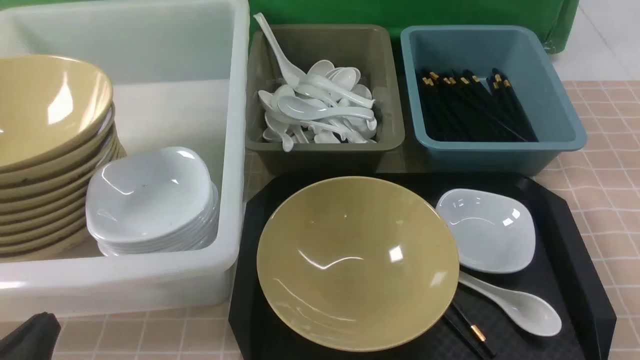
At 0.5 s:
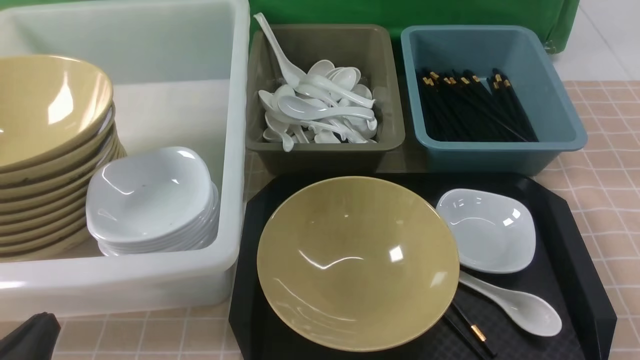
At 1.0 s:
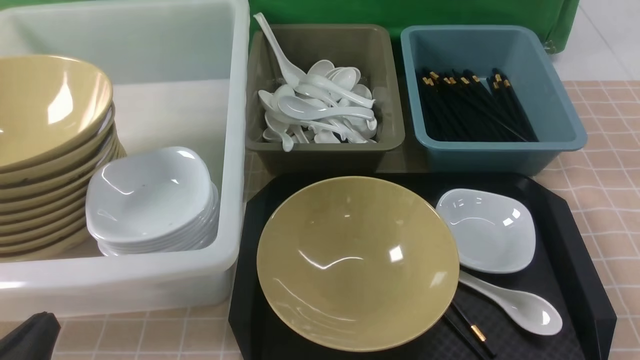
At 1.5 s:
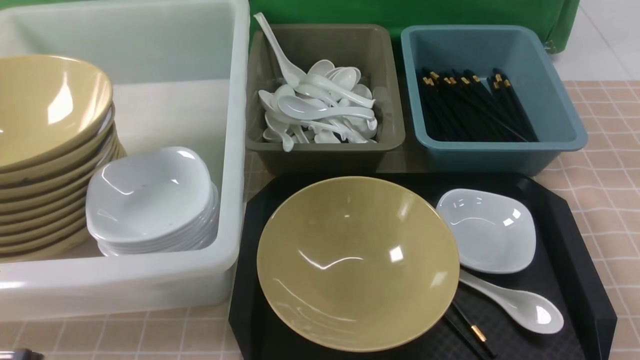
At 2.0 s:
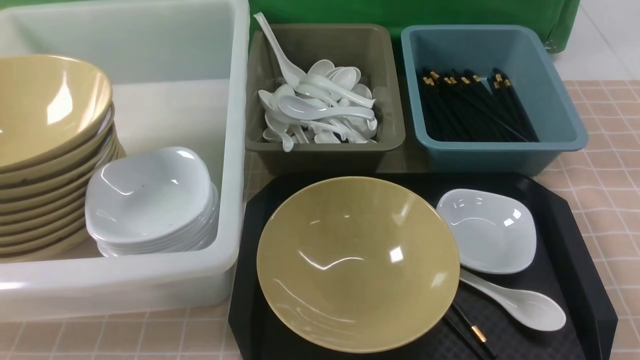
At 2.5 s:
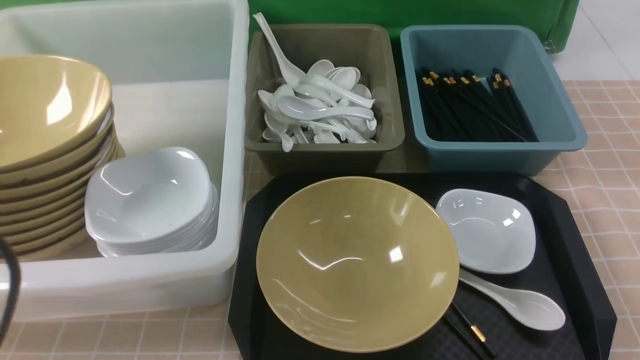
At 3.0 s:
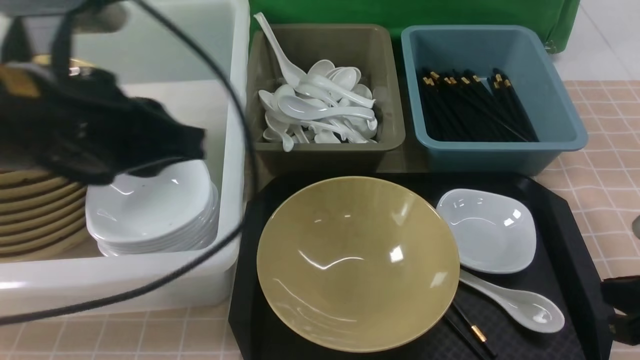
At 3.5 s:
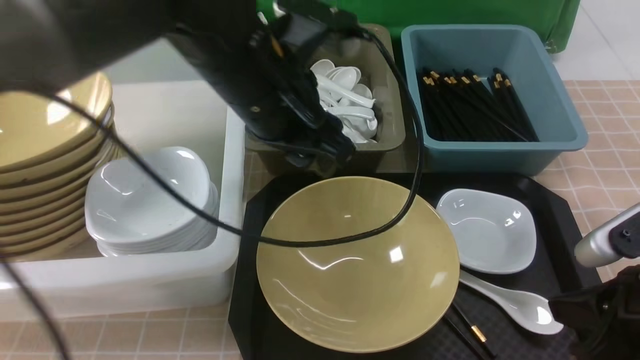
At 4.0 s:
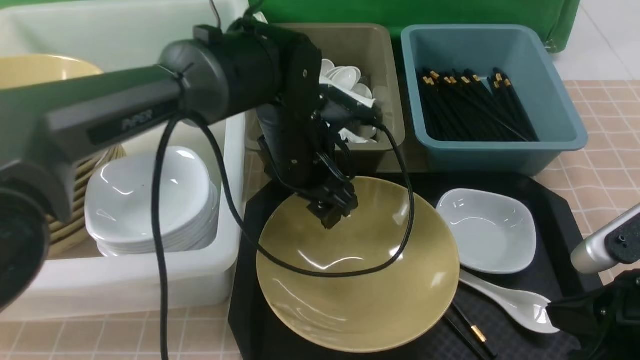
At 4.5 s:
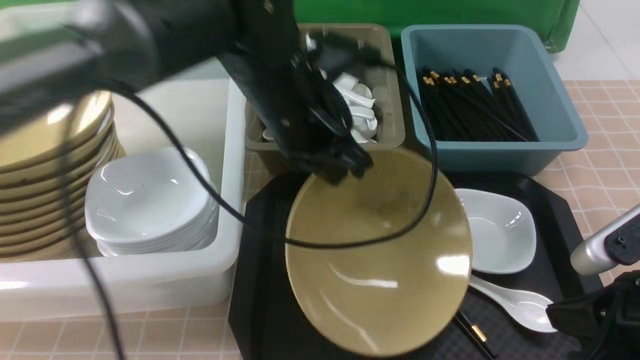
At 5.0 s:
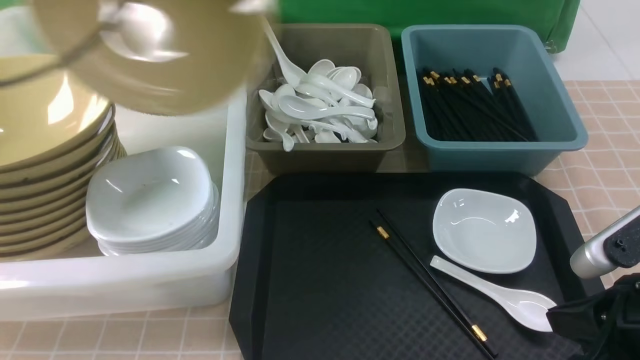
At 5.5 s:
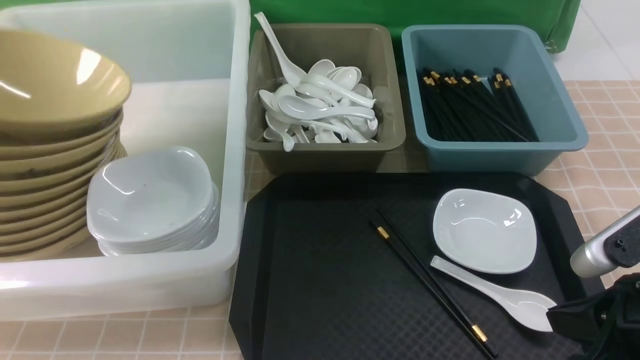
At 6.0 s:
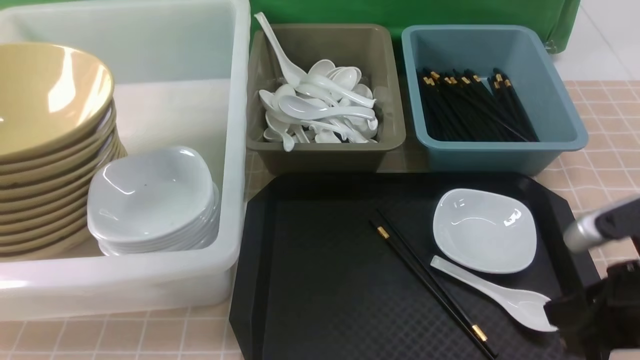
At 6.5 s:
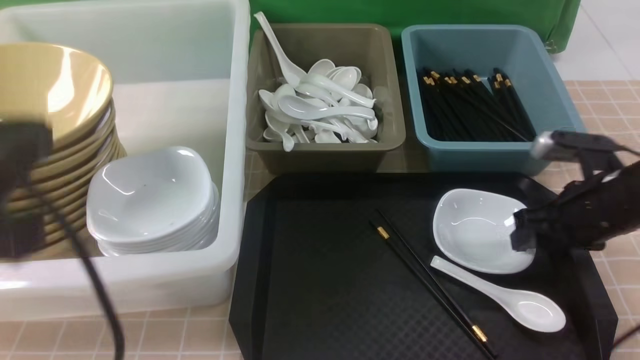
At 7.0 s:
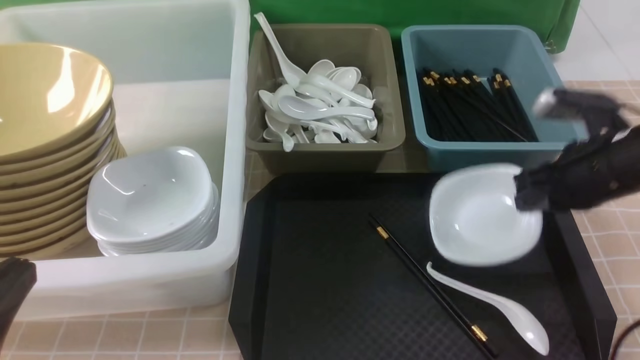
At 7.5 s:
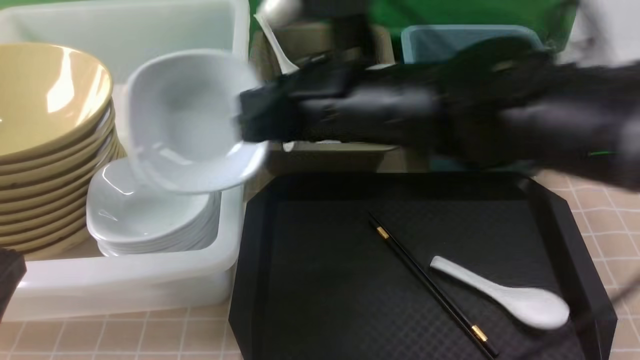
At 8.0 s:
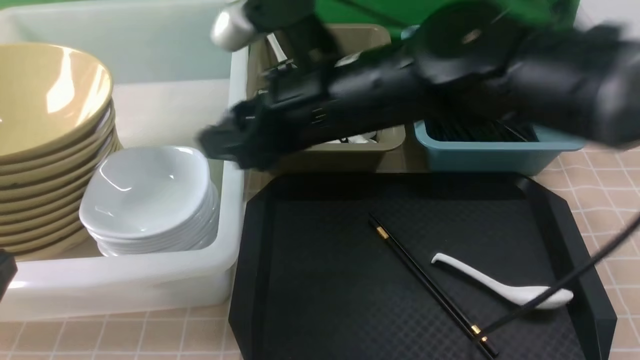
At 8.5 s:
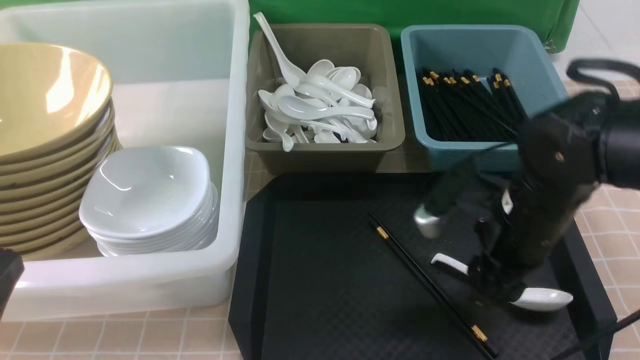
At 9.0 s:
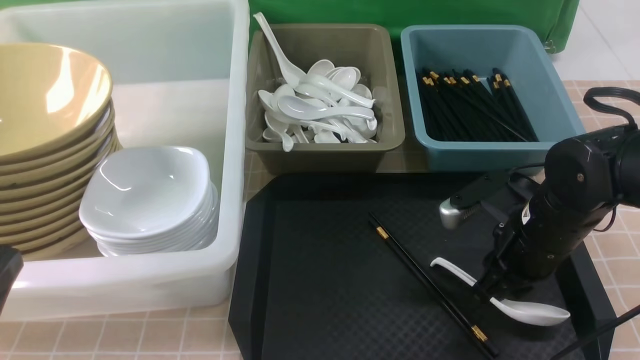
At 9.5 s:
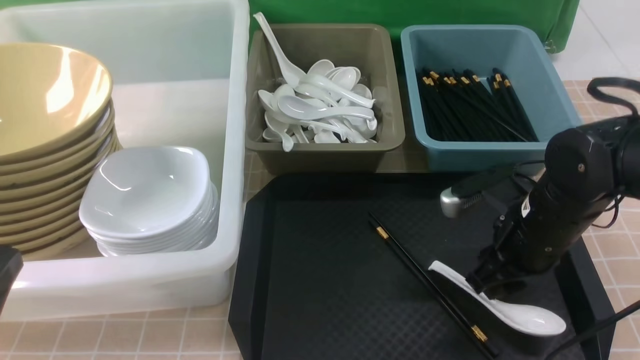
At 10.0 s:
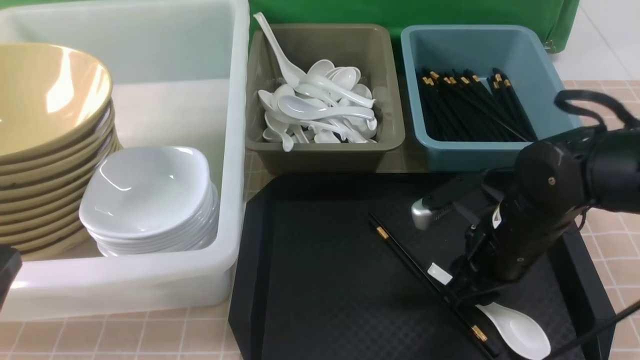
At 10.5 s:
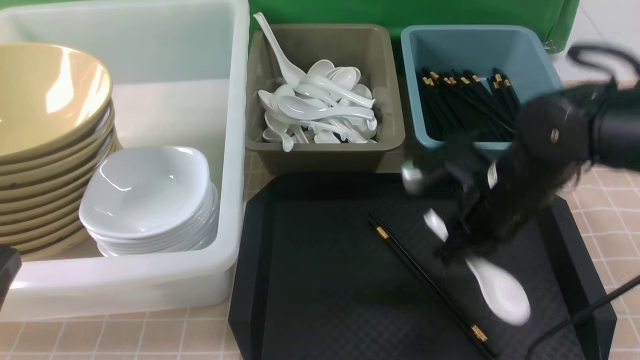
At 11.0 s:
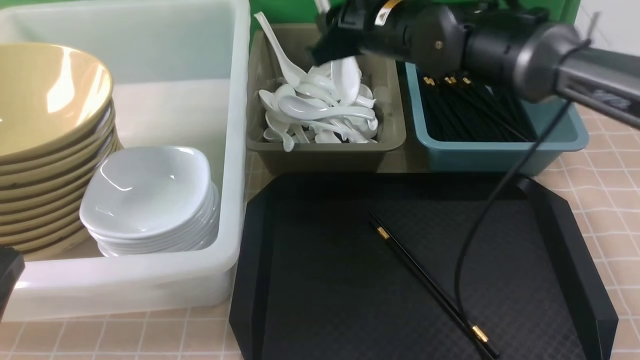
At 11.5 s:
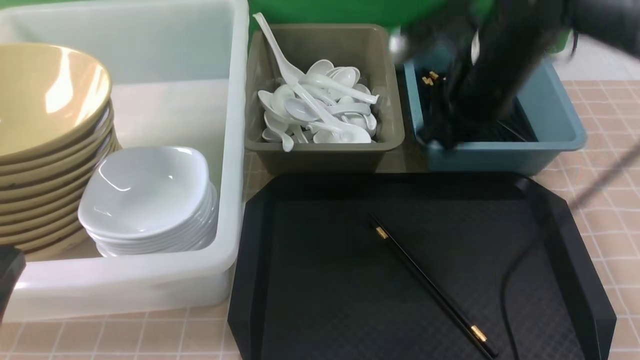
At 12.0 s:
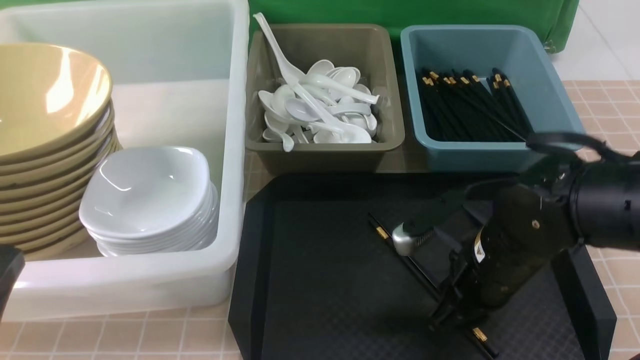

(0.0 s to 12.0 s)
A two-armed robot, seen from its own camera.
Task of the whole recording: on brown table put chopsticks spoon bowls plates into blue grey white boxes.
Step, 0.0 s - 4.5 s: use the left arm to grab the yellow noodle bowl on the left.
Step, 5.0 s - 5.5 s: use the left arm to put the noodle bowl into the large storage box on the left.
Step, 6.5 s - 7.0 s: use the right arm to grab the plate.
Step, 7.5 s - 8.0 s: use the right arm to put the plate into the large storage box on the left.
Step, 8.5 s - 10.0 s: use the right arm to grab the soup spoon in the middle.
0.0 s - 2.0 s: The two grippers go about 10 cm upward.
2.0 s - 4.0 s: The right gripper is displaced forward and to the left by roughly 15 cm. Meanwhile the left gripper is displaced forward and to the right by roughly 40 cm, and opens its fingers.
4.0 s - 6.0 s: The left gripper heads to the left, upward and backward, covering some 35 cm, and closes, then reopens.
6.0 s - 8.0 s: The right gripper shifts approximately 25 cm to the left and forward, and opens its fingers, while the left gripper moves backward and downward, approximately 25 cm, and closes its fingers.
8.0 s - 10.0 s: The right gripper moves to the right and downward, approximately 20 cm, and closes its fingers.
10.0 s - 12.0 s: The right gripper reaches roughly 15 cm forward, then returns.

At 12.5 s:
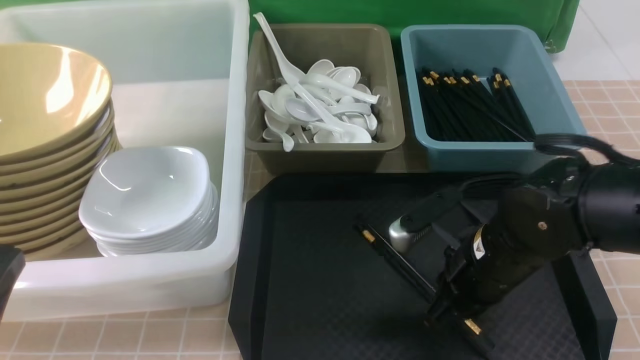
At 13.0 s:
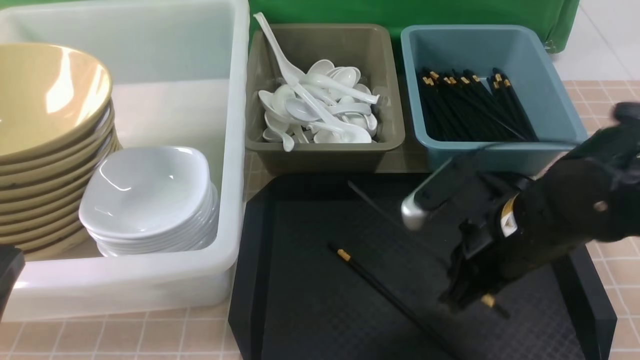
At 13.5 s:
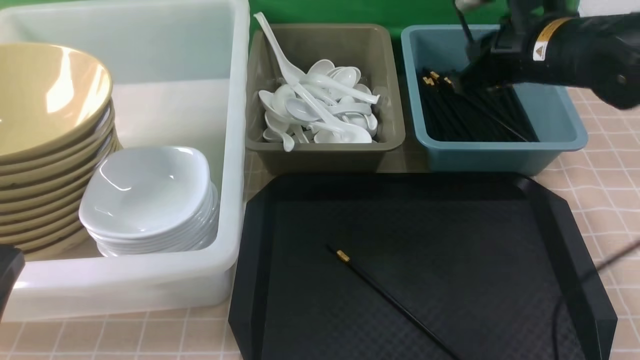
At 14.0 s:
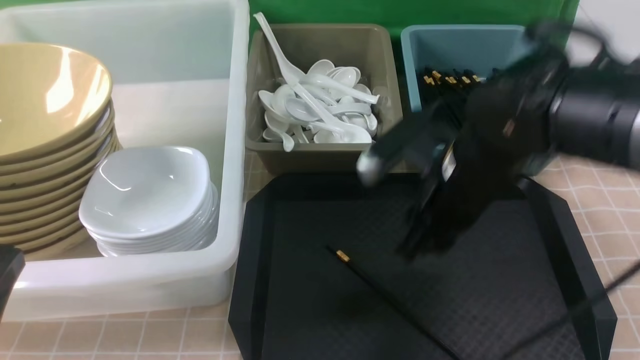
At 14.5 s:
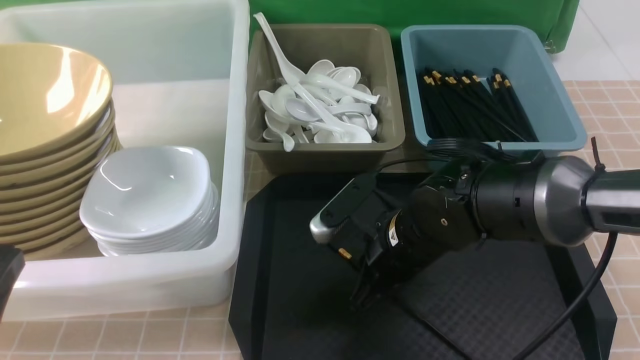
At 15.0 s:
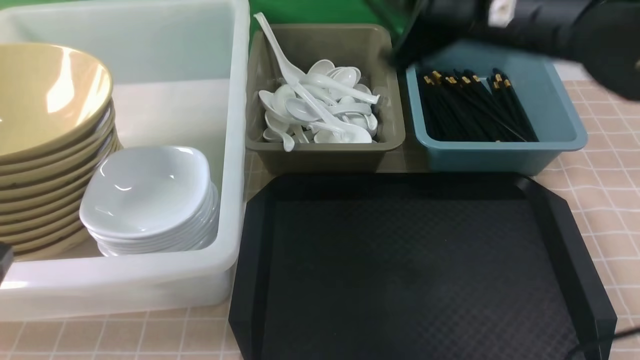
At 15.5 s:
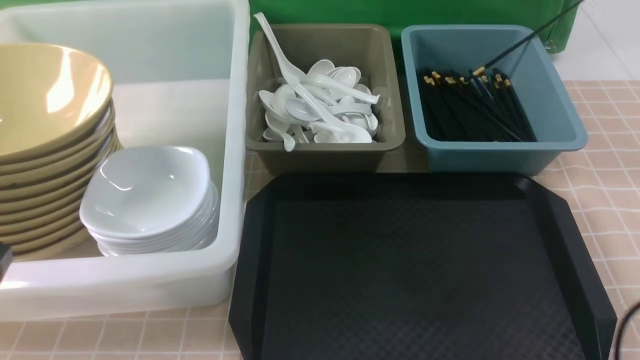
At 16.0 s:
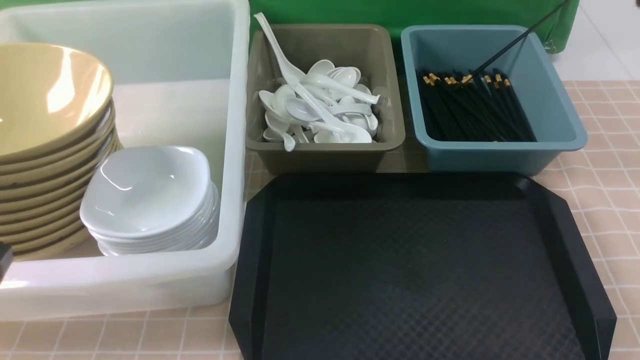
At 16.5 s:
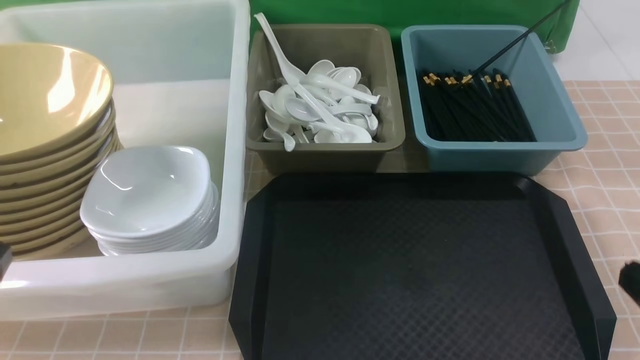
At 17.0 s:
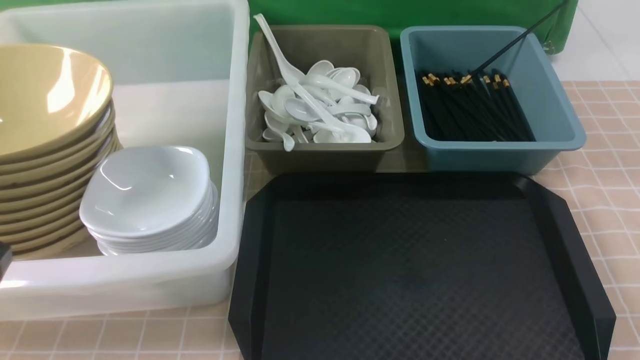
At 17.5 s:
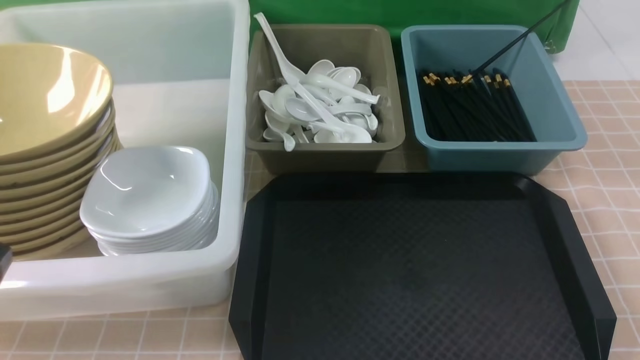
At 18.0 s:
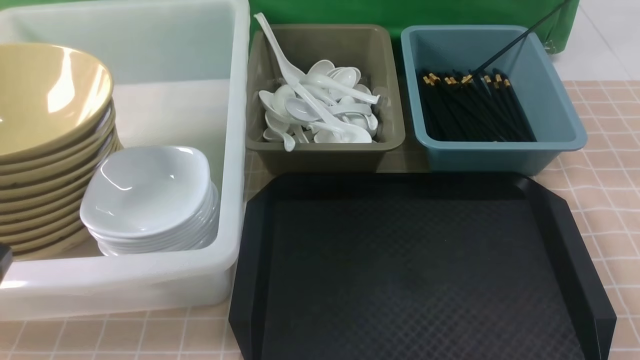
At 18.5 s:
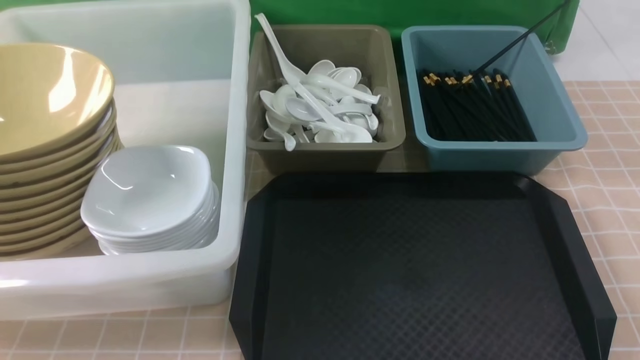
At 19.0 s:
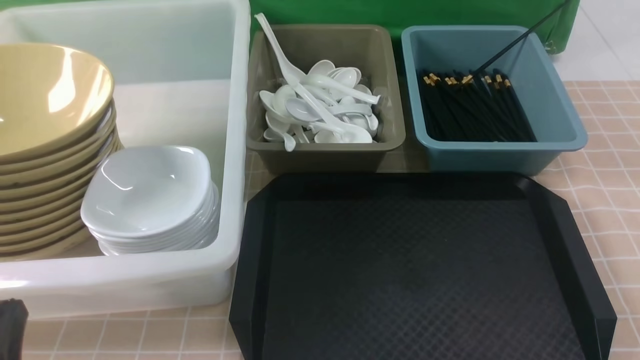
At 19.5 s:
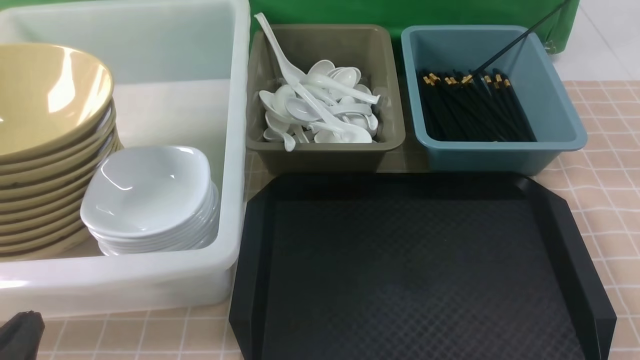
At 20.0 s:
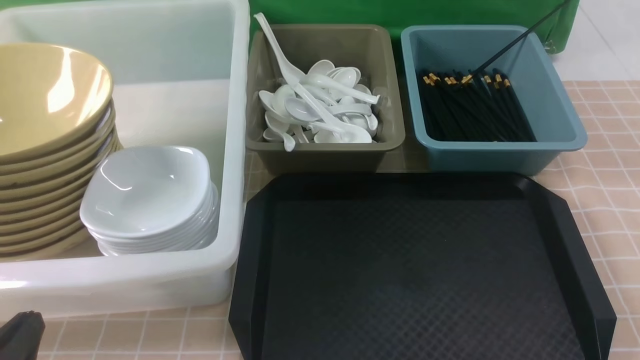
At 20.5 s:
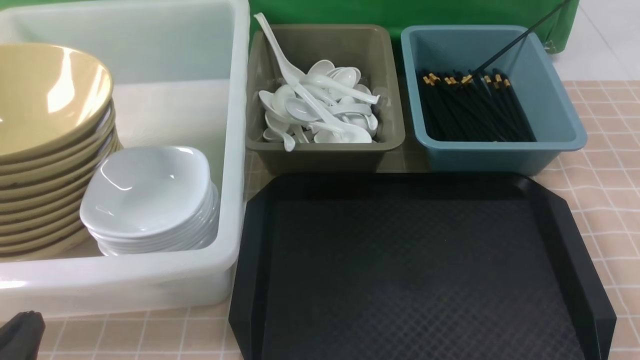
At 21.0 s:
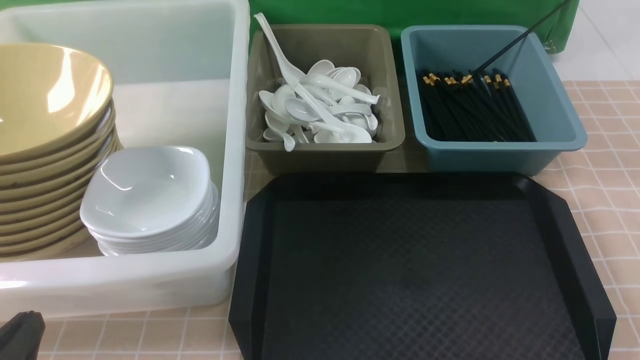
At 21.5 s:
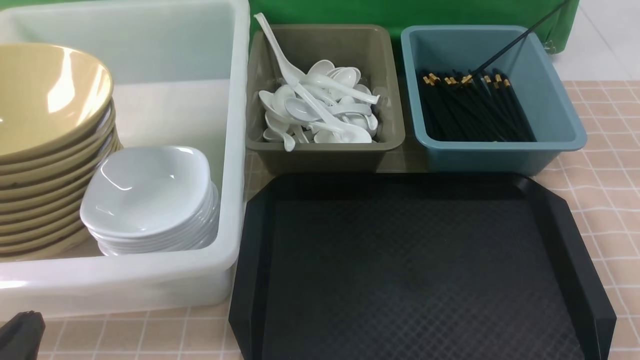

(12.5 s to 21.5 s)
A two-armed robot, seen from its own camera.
Task of the whole recording: on brown table put chopsticks spoon bowls plates into blue grey white boxes.
Step, 13.0 s - 13.5 s: use the right arm to put a chopstick into the small storage box on the right.
Step, 14.0 s - 14.5 s: use the right arm to grab a chopstick.
Step, 15.0 s - 15.5 s: use the right arm to put a chopstick into the small storage box on the right.
12.5 s - 14.5 s: The right gripper shifts some 5 cm to the left, and opens and closes again.
14.5 s - 17.0 s: The right gripper travels to the right and backward by approximately 35 cm, and opens, then closes again.
17.0 s - 19.5 s: The left gripper goes approximately 10 cm downward.
19.5 s - 21.5 s: Both grippers stay about where they are.
